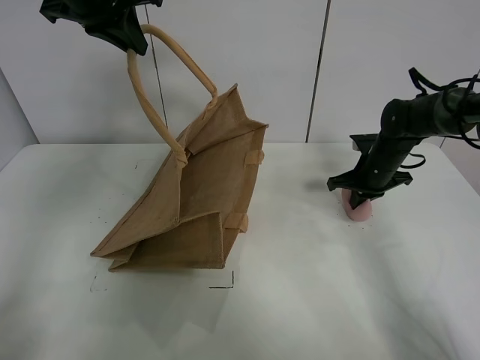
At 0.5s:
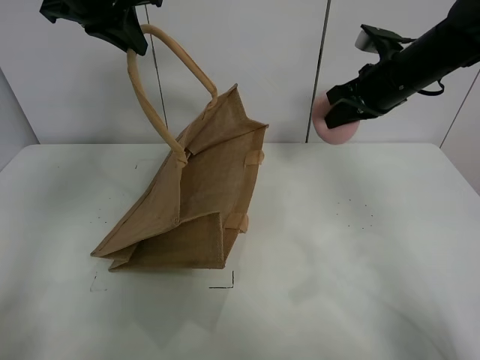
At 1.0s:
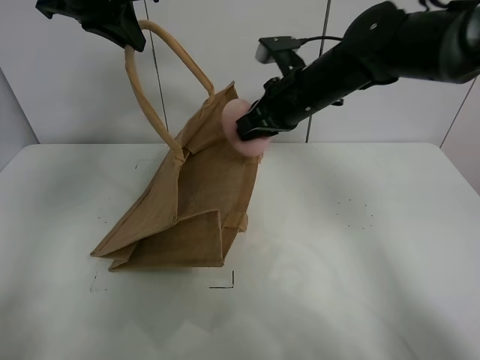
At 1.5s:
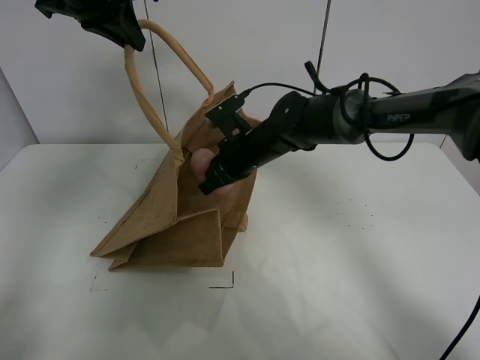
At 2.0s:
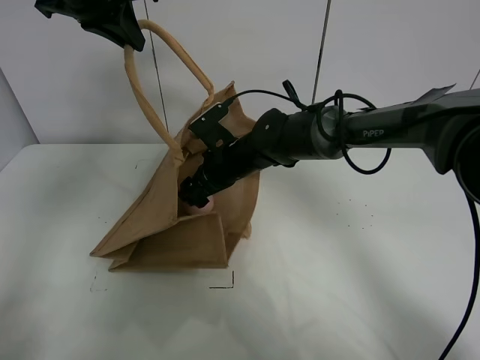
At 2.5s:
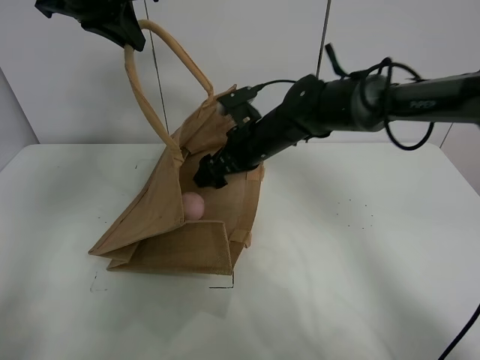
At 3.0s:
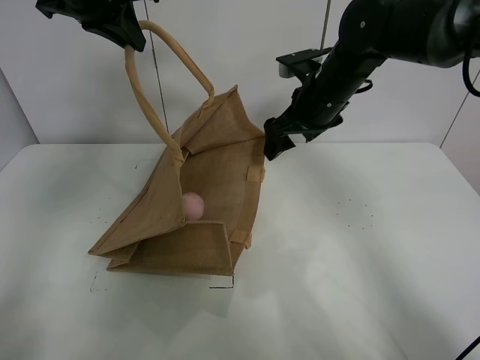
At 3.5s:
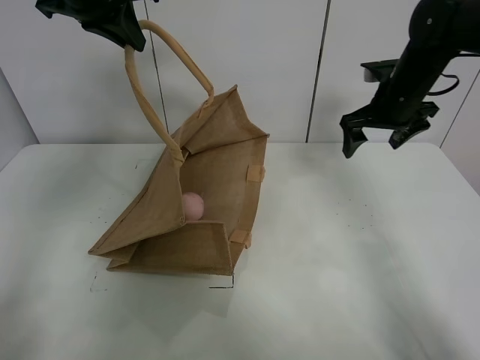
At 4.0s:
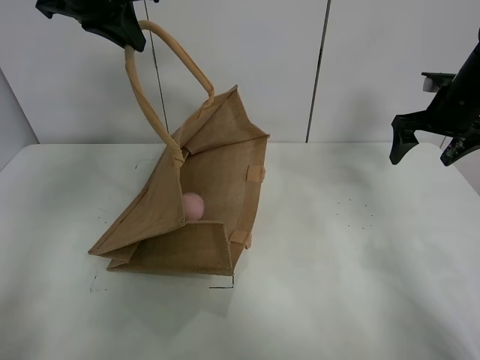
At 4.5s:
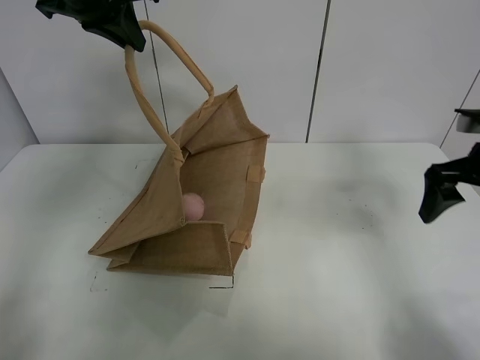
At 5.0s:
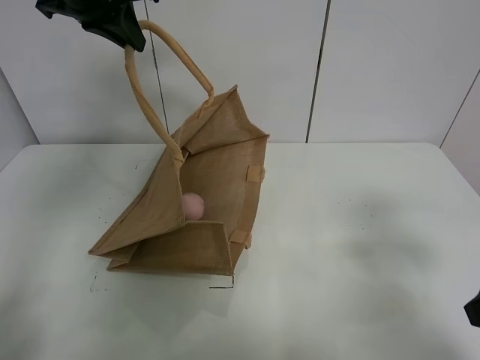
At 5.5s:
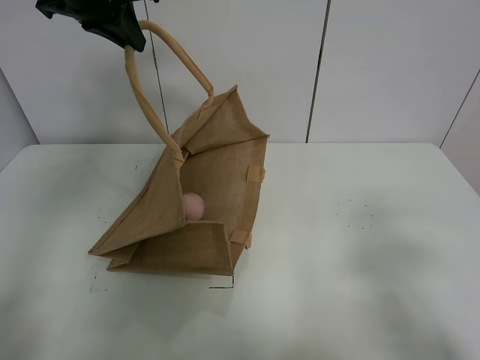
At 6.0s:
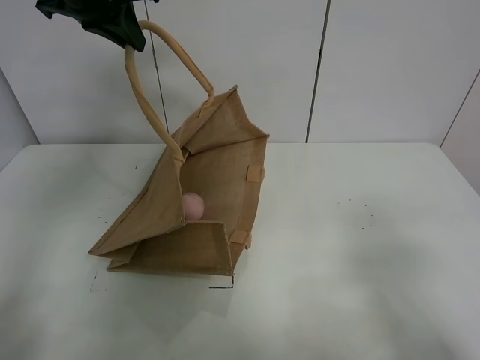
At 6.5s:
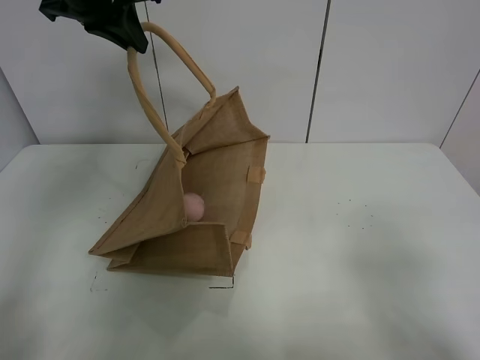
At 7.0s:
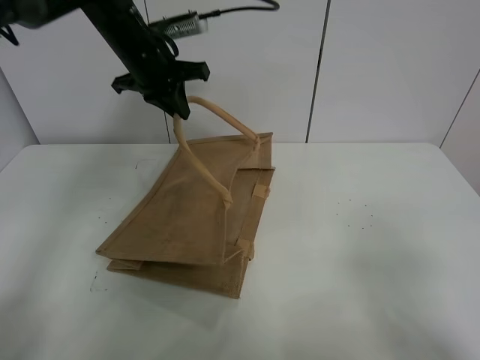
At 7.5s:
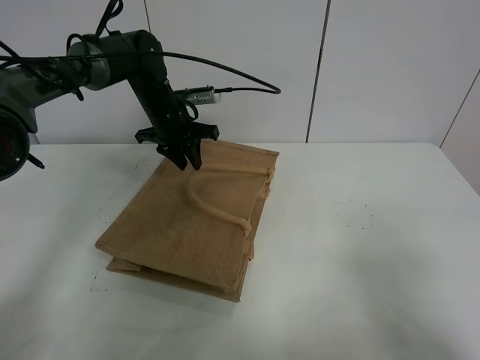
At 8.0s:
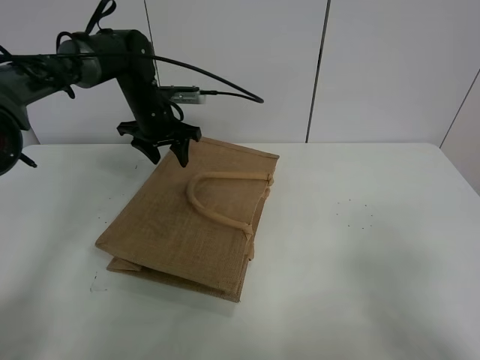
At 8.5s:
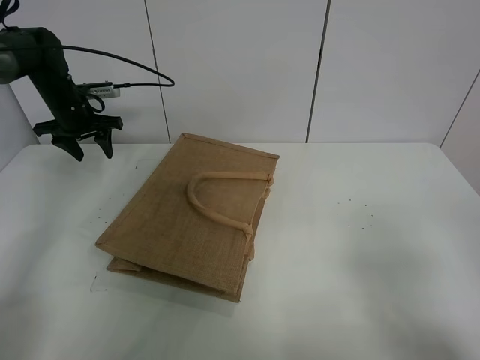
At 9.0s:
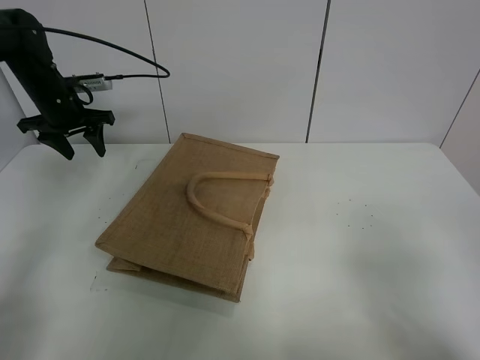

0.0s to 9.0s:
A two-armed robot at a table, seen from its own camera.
Task of the whole recording: open the brown linen bag and put the peach in the bag.
Step, 0.0s to 3.0s: Place the peach in the handbag with right gripper.
Step, 3.5s to 8.0s: Put down the handbag with left grippe.
0.0s to 2.0s: The right gripper moves to the left, about 25 cm, and opens.
2.0s to 4.5s: The right gripper moves to the right, about 30 cm.
4.5s to 7.0s: The right gripper travels backward by roughly 25 cm. The left gripper heads downward and forward, covering approximately 15 cm.
7.0s to 9.0s: The left gripper goes approximately 20 cm to the left, and opens its fingers.

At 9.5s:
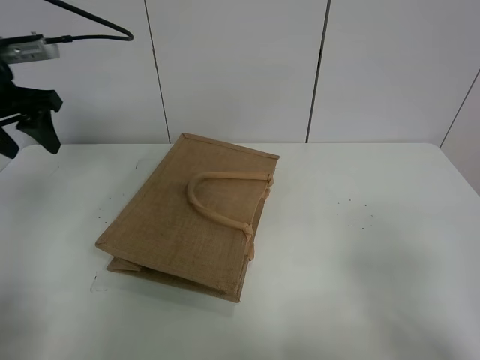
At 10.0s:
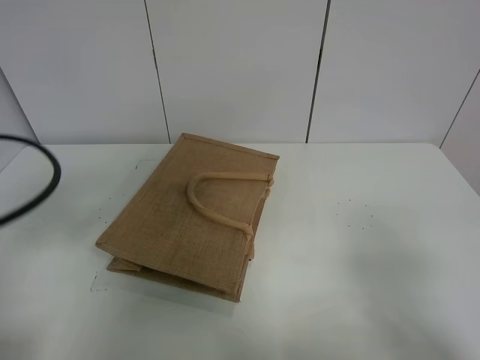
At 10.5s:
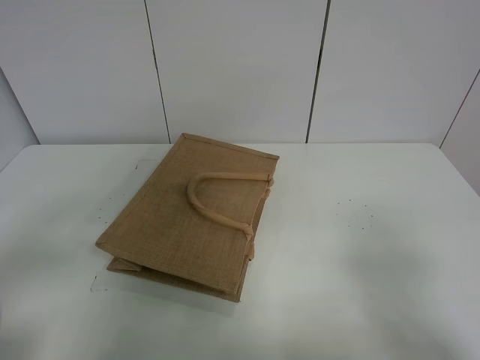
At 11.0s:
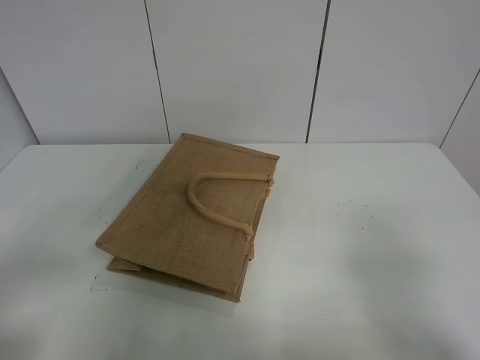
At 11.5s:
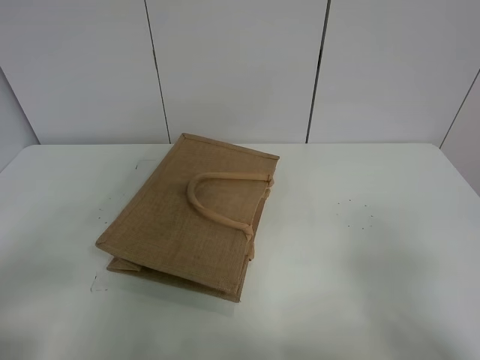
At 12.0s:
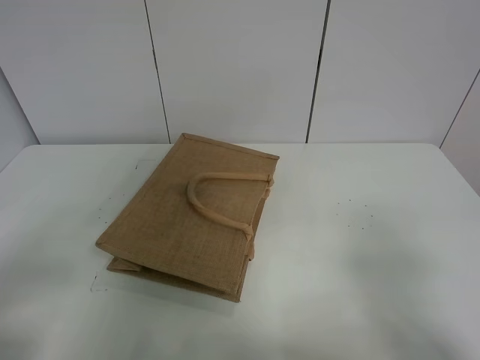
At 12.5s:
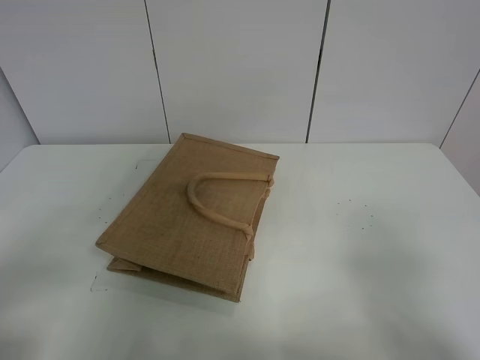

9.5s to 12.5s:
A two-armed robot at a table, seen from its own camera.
Task of the whole recording: open the brown linen bag and put the peach in the bag.
9.5s to 11.0s: The left gripper shifts some 30 cm backward.
